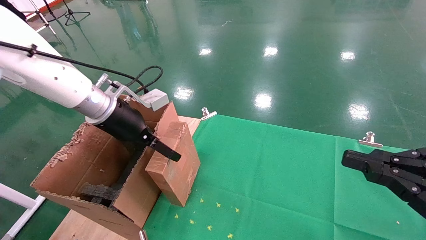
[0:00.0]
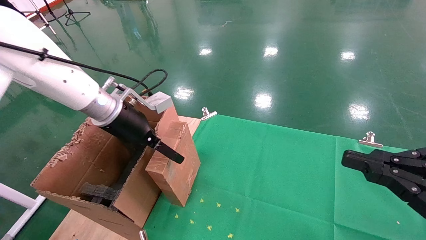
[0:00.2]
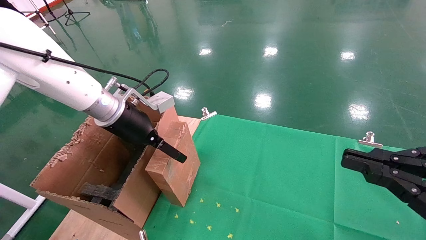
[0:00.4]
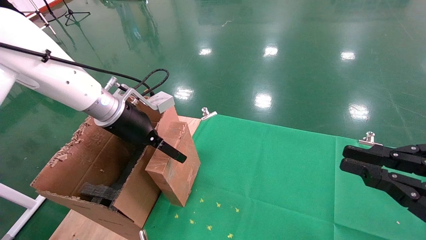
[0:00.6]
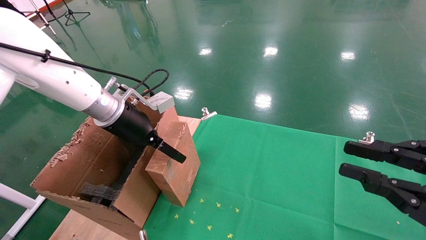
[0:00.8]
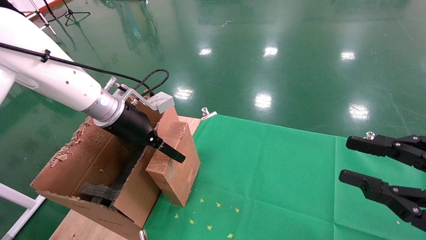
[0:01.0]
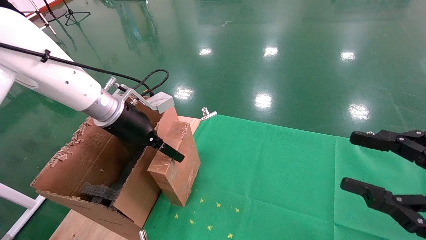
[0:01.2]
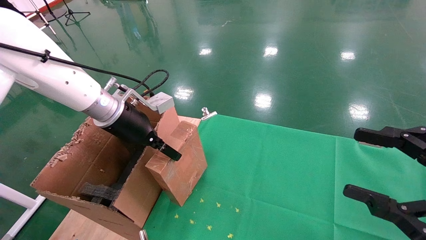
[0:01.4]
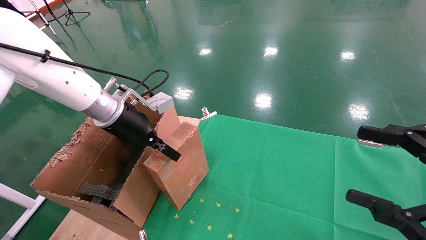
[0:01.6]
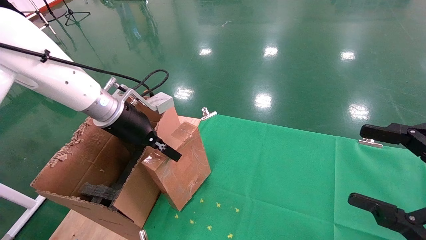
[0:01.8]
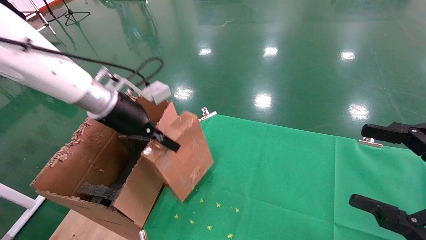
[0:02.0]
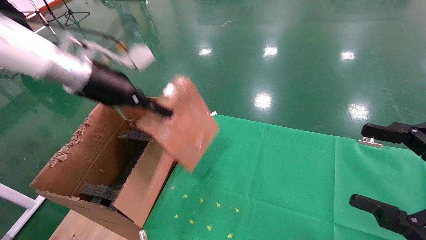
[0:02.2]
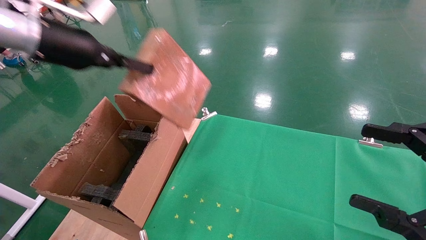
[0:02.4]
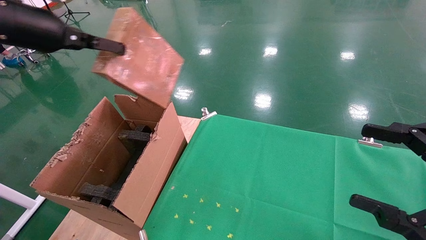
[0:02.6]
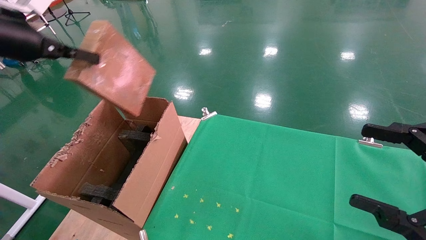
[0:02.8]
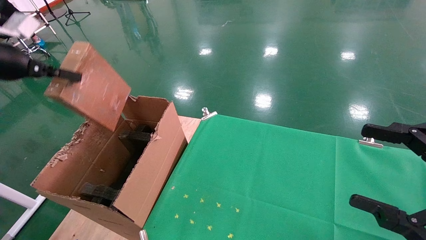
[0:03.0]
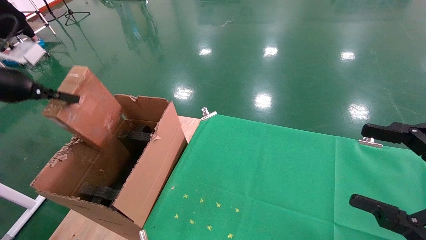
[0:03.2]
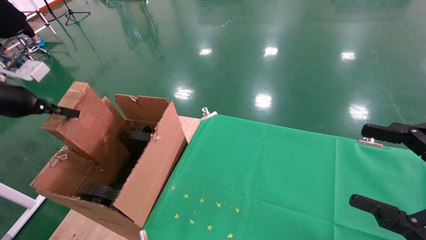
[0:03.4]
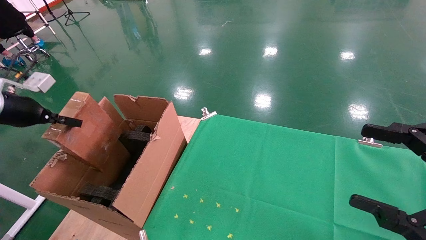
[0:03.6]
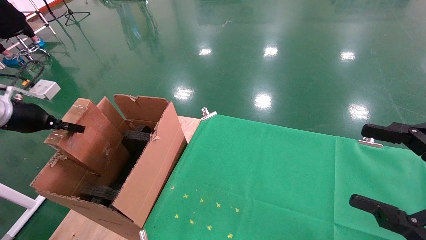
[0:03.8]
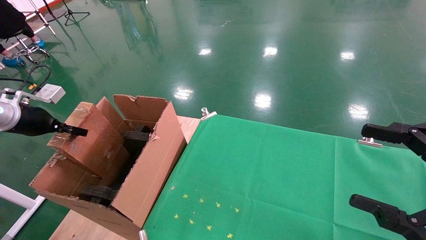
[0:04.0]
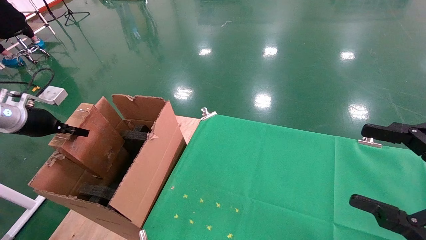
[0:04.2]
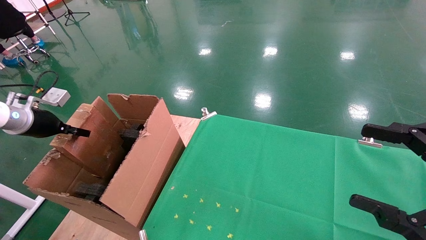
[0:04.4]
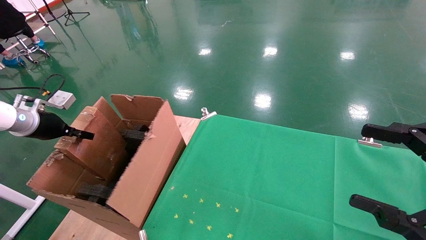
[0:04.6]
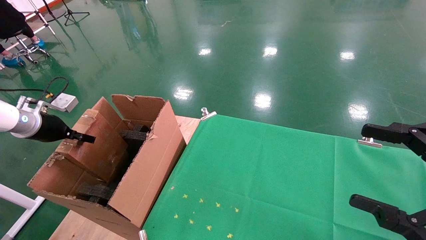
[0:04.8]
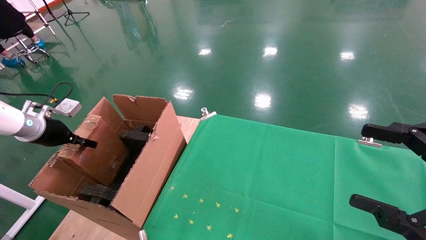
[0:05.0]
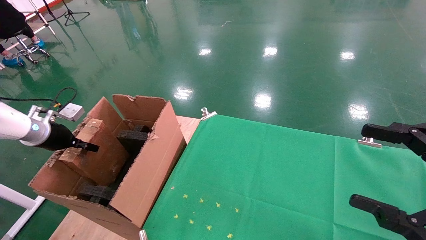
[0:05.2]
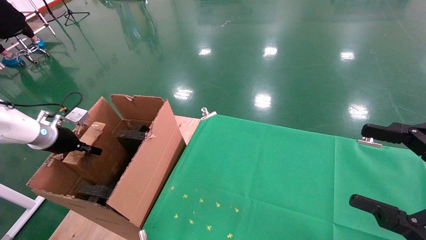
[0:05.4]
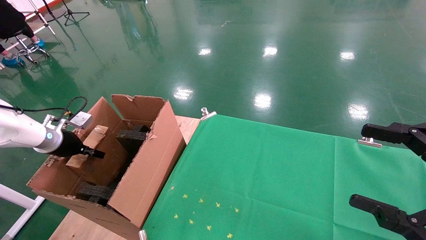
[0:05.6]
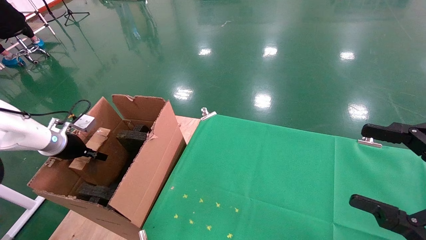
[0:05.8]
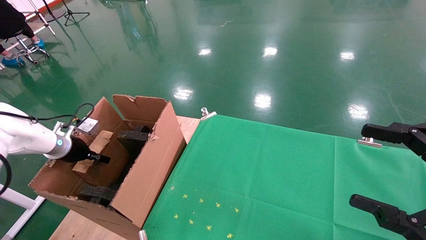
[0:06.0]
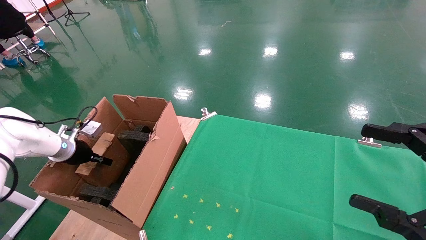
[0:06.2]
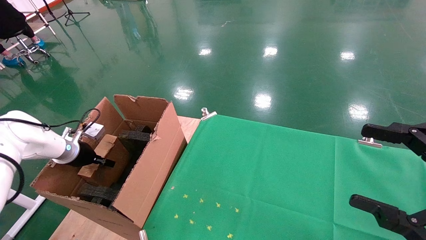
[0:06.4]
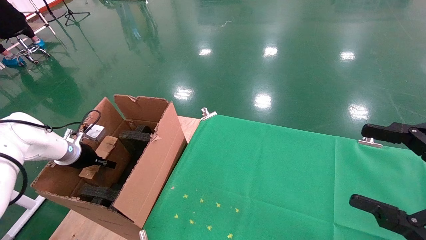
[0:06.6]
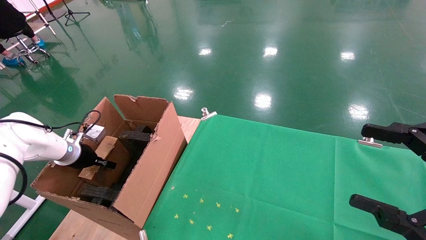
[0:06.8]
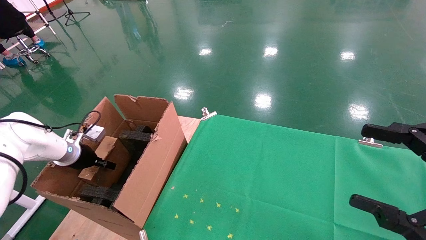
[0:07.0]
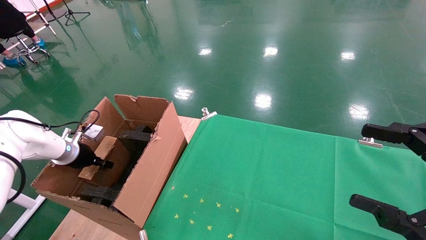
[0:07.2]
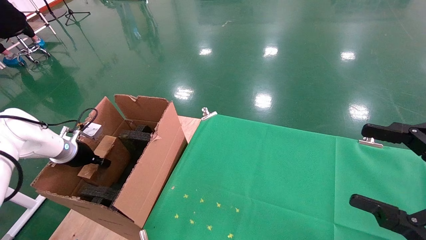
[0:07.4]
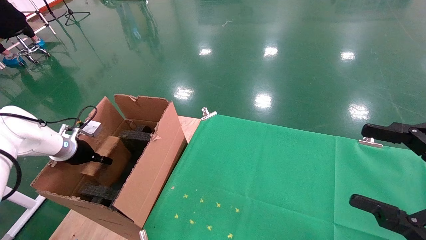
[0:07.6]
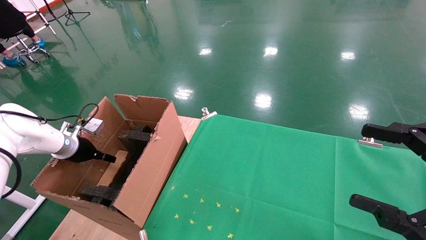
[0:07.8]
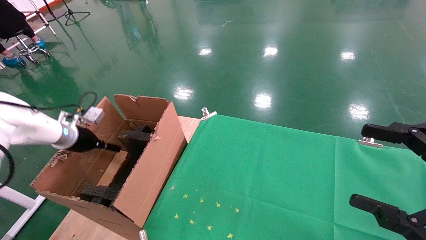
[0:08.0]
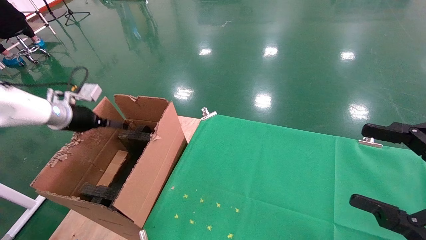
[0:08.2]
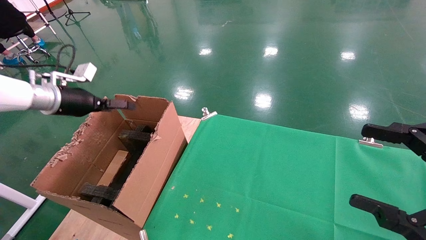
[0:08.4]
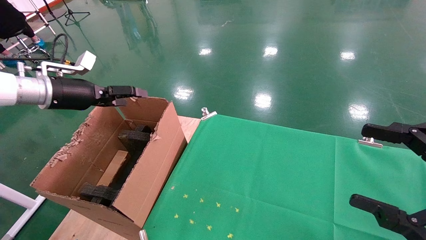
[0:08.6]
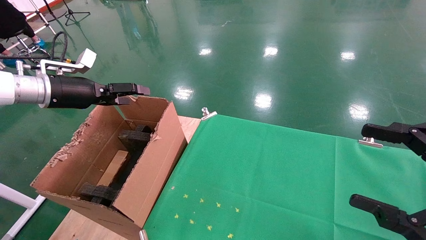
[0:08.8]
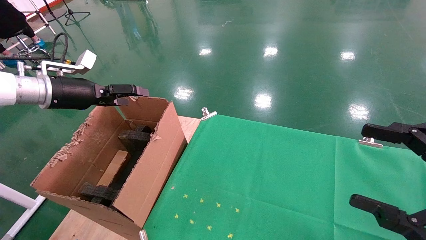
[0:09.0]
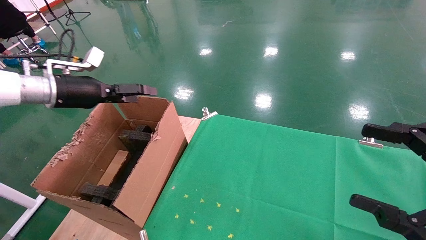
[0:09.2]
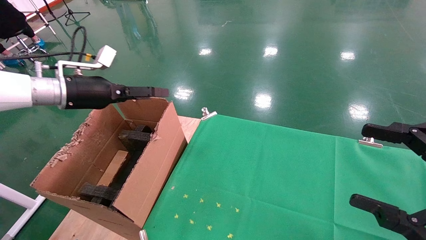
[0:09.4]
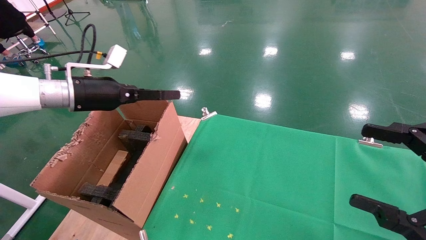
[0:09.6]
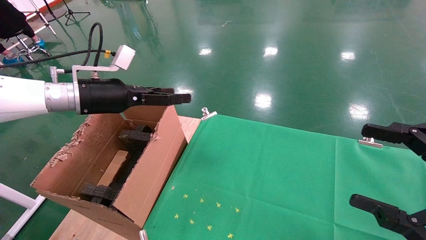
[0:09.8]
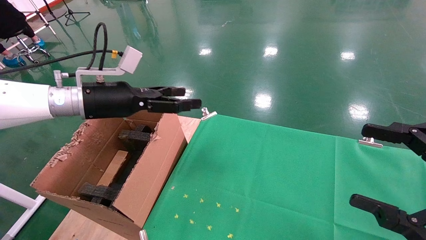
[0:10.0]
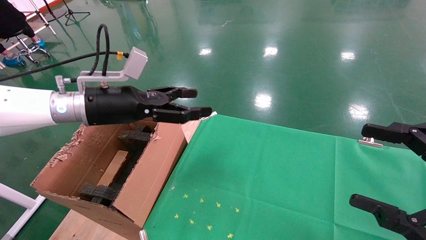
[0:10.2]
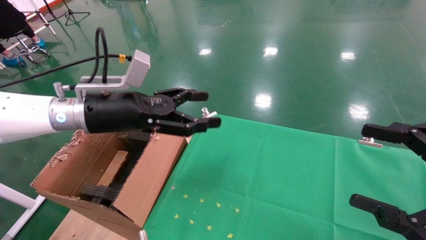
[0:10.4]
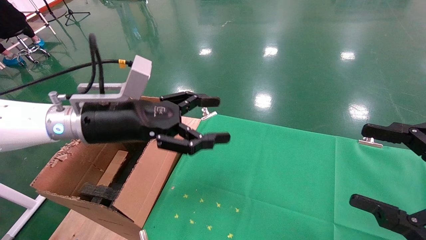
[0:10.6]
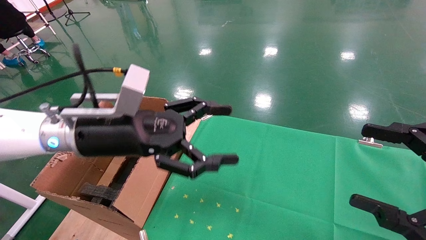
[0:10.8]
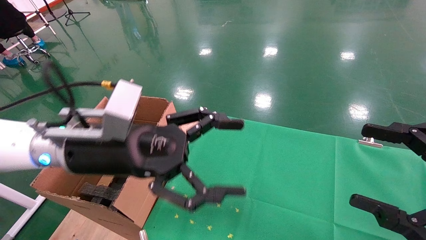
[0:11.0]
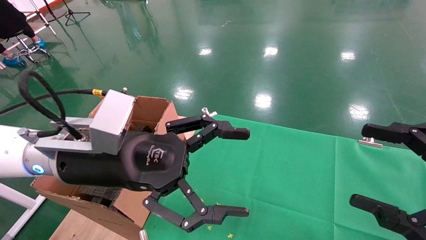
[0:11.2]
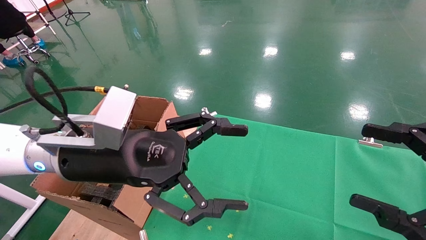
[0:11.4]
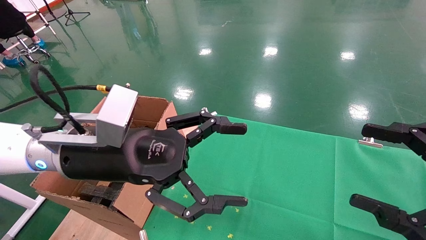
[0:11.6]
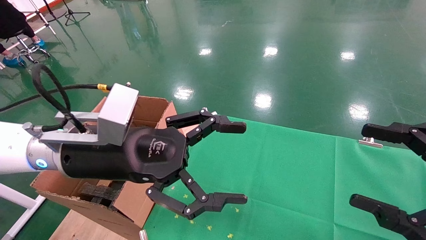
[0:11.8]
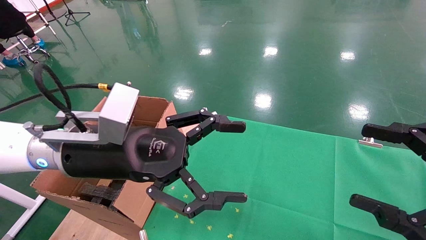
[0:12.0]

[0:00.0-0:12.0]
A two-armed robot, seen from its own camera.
Task of the whole recording: using a robotic arm to pick up a cardboard box and palace it the carton.
Step, 0:01.6 to 0:08.4: Place the mouse and the power cord paper box into the container.
0:00.0 to 0:01.6: The right gripper opens. The left gripper closes its fingers.
0:01.6 to 0:03.0: The left gripper travels to the left and upward by roughly 25 cm.
0:03.0 to 0:04.4: The left gripper is displaced downward by approximately 15 cm.
0:04.4 to 0:06.0: The left gripper is displaced downward by roughly 10 cm.
0:06.0 to 0:07.6: The left gripper opens its fingers.
0:07.6 to 0:09.0: The left gripper moves upward and to the right, approximately 20 cm, and opens its fingers.
0:09.0 to 0:10.4: The left gripper shifts some 15 cm to the right.
0:10.4 to 0:12.0: The left gripper goes some 10 cm backward and to the right.
